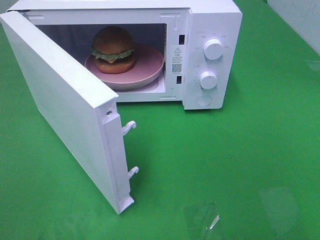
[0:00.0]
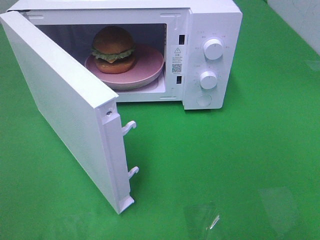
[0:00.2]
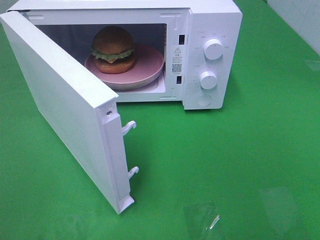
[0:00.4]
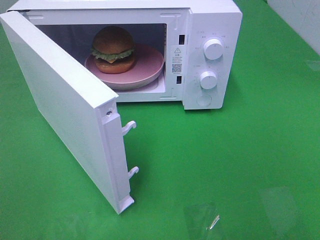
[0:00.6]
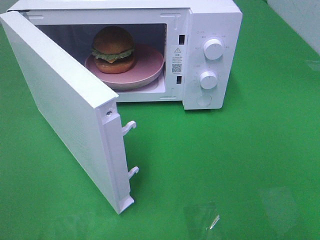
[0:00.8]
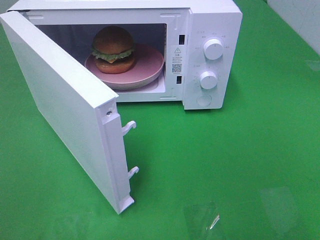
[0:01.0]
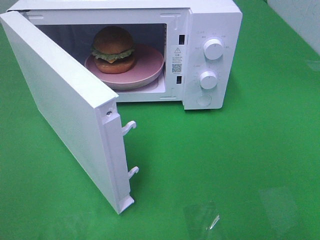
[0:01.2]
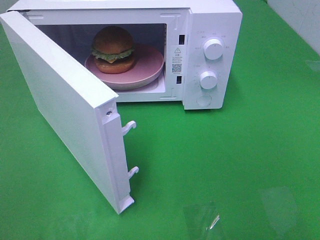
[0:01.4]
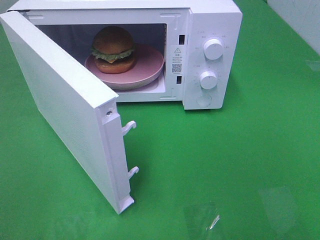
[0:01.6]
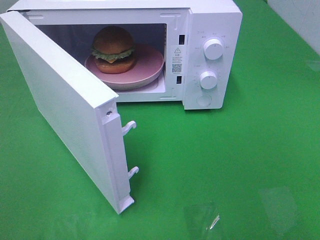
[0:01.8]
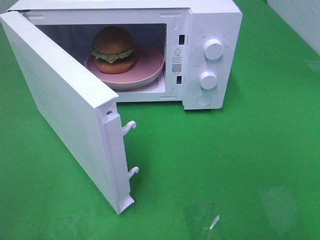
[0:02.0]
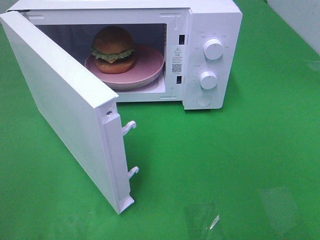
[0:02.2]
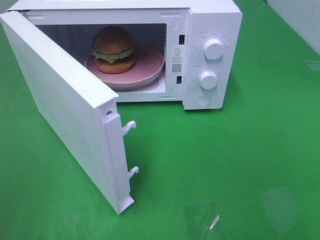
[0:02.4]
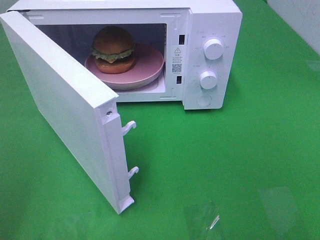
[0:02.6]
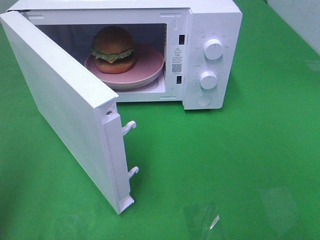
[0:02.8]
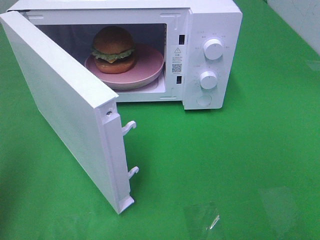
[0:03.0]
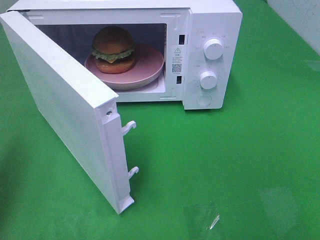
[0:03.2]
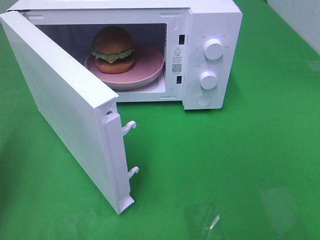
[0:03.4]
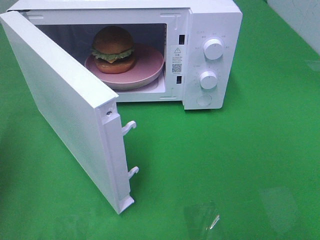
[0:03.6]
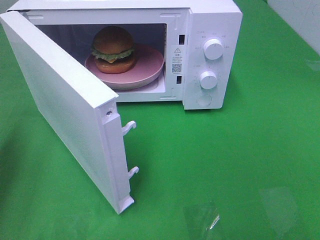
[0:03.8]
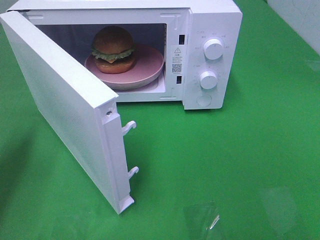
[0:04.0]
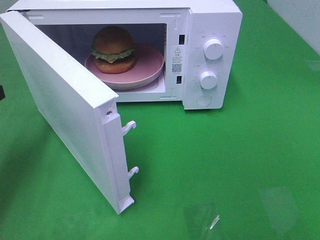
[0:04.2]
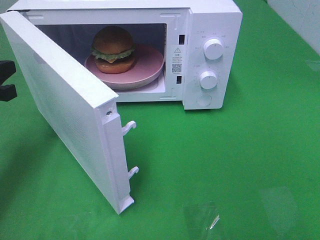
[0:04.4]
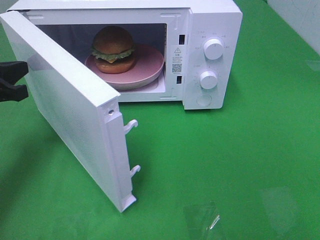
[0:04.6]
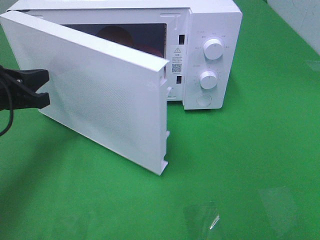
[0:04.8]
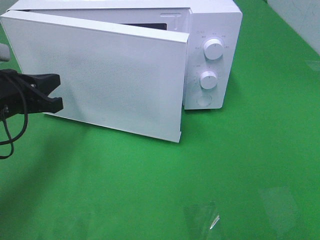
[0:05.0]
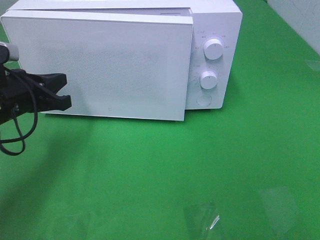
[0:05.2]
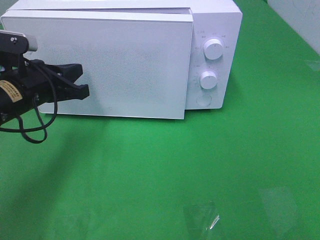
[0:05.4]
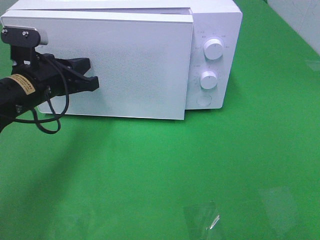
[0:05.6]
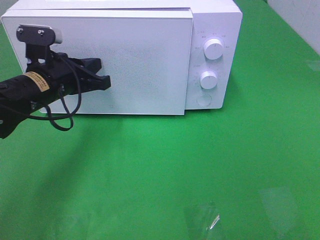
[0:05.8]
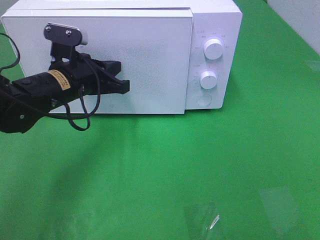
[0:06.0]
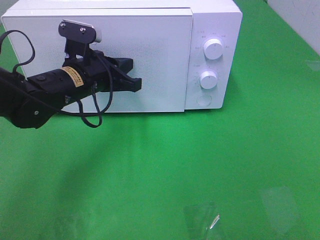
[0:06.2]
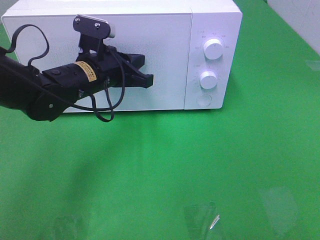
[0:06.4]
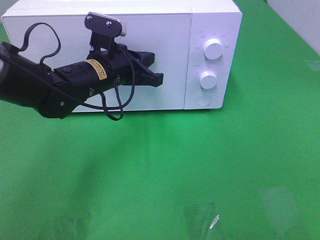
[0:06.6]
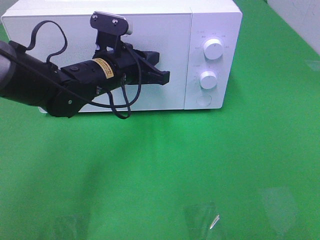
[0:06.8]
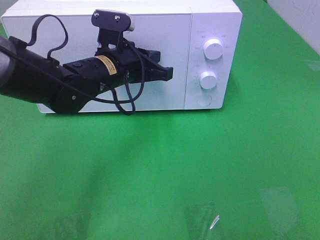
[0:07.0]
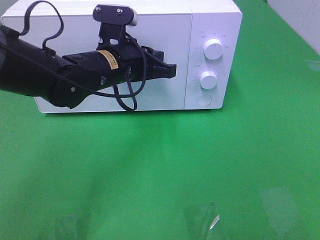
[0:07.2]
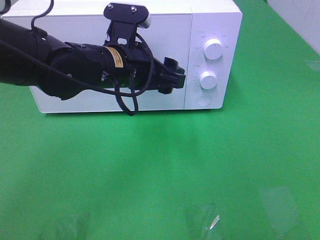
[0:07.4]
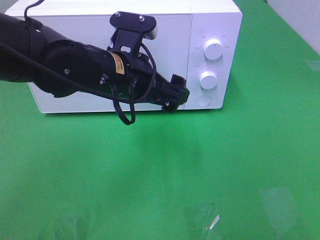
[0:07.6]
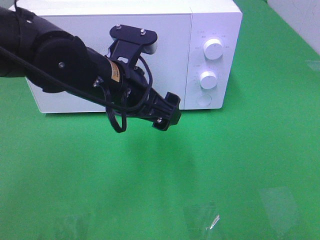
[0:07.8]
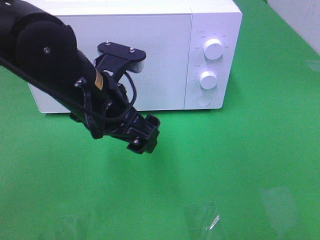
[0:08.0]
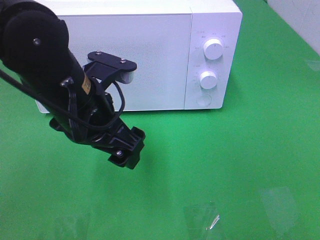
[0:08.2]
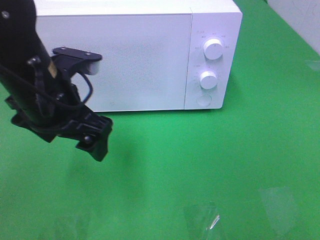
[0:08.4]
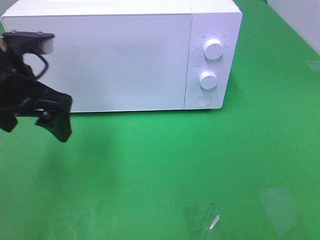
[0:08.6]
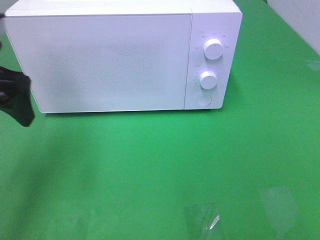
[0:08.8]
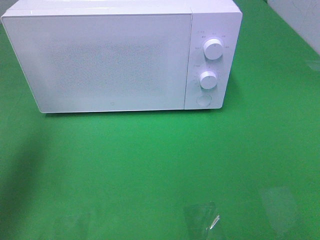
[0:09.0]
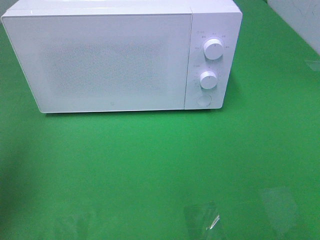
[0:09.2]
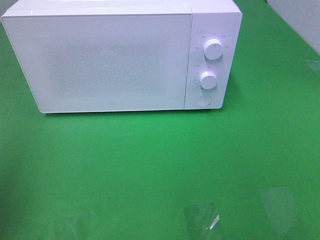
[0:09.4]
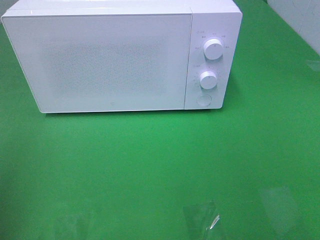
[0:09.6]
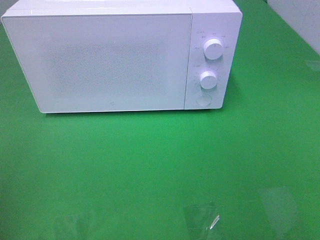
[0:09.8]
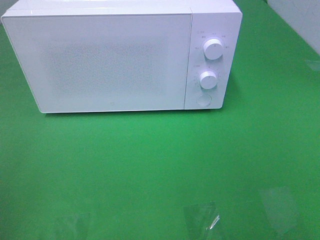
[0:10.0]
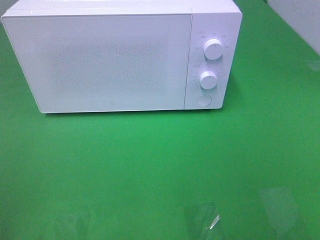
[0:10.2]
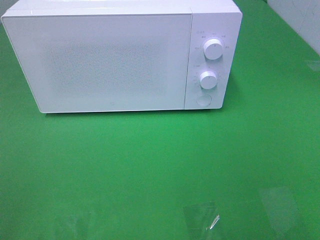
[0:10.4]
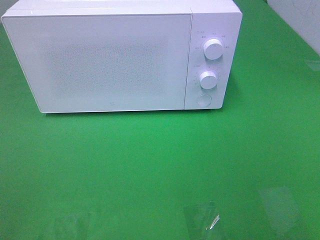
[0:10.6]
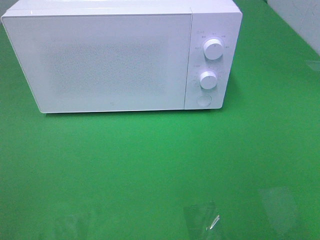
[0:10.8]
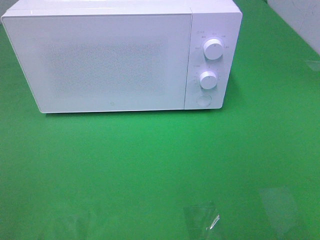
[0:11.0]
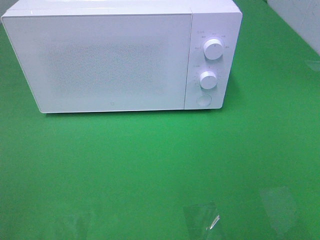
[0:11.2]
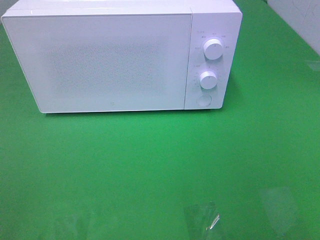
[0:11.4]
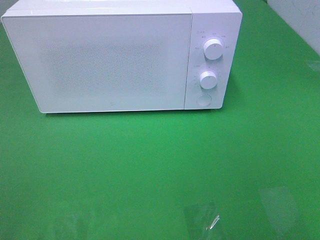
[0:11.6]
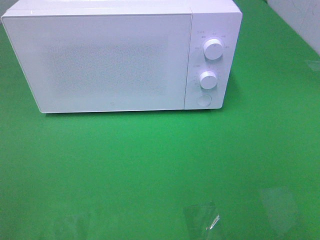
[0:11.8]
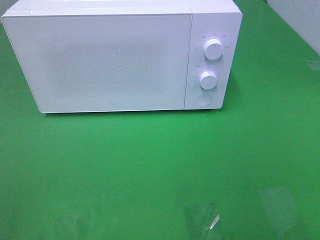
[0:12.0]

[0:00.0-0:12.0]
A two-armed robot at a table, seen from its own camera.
Task of the whole recording: Heat the burger.
Step, 0:00.0 to 0:07.0: Left hand: close the microwave door.
0:01.6 to 0:03.0: The left gripper is displaced forward by some 15 cm, and closes its fingers.
0:03.0 to 0:04.4: The left gripper is displaced forward and downward by approximately 20 cm.
0:04.4 to 0:06.0: The left gripper shifts roughly 15 cm to the right.
0:06.0 to 0:07.6: The left gripper heads to the right and backward, covering about 10 cm, and opens its fingers.
0:07.6 to 0:09.0: The left gripper moves to the left and upward, roughly 30 cm.
0:09.0 to 0:10.4: The left gripper travels backward by approximately 25 cm.
0:10.4 to 0:12.0: Both grippers stay put.

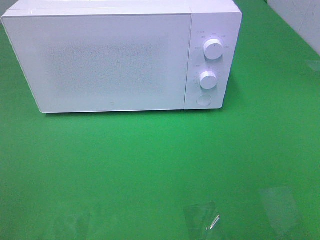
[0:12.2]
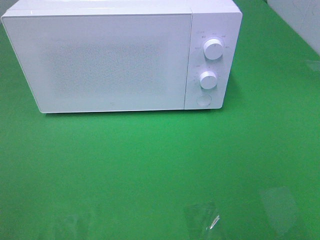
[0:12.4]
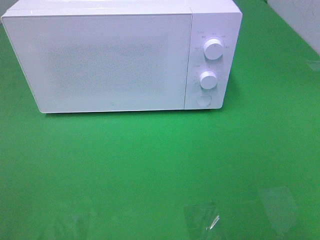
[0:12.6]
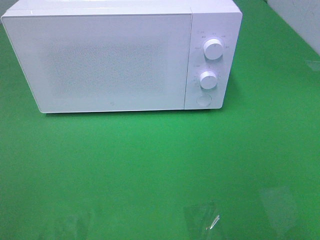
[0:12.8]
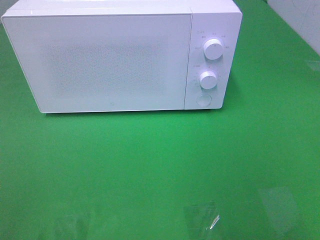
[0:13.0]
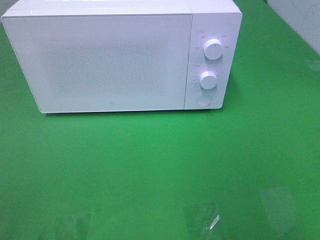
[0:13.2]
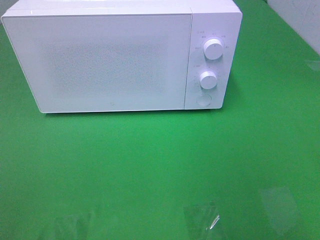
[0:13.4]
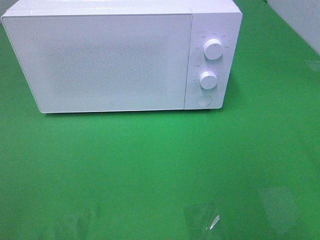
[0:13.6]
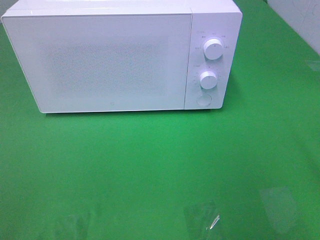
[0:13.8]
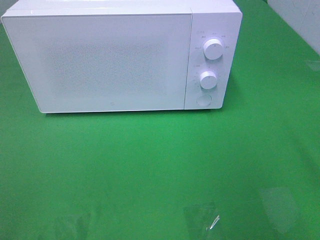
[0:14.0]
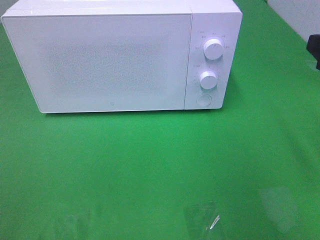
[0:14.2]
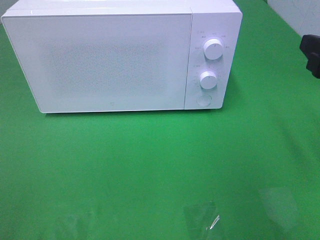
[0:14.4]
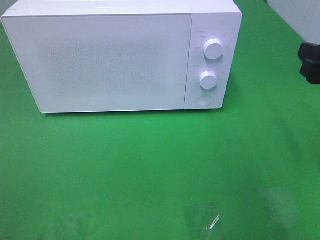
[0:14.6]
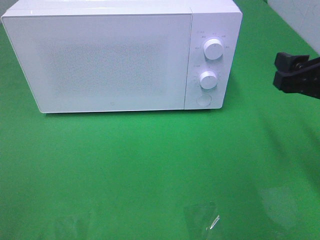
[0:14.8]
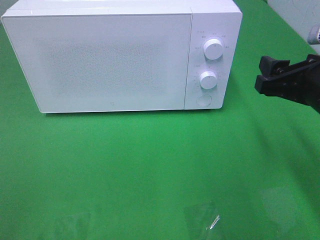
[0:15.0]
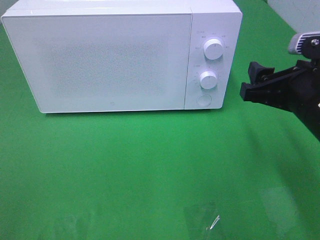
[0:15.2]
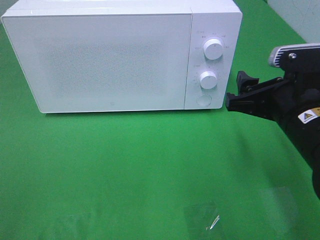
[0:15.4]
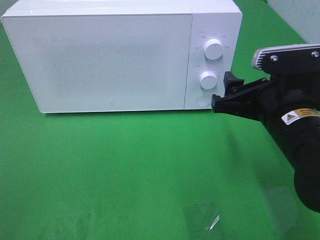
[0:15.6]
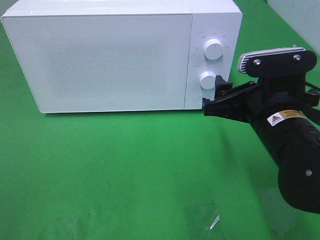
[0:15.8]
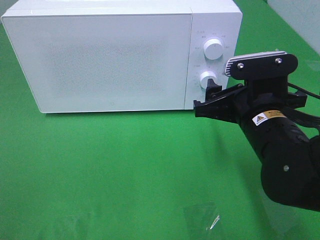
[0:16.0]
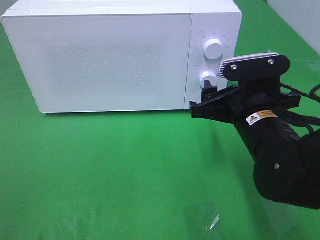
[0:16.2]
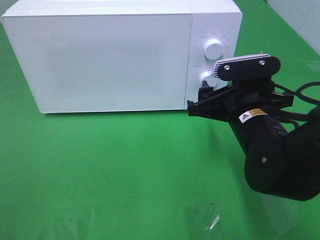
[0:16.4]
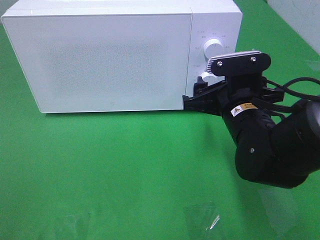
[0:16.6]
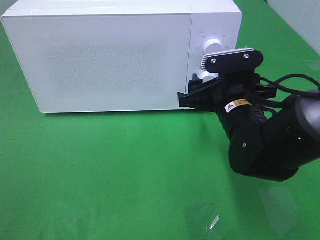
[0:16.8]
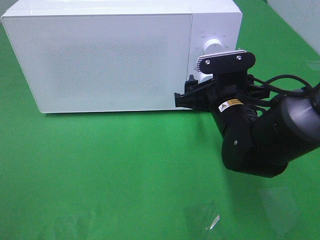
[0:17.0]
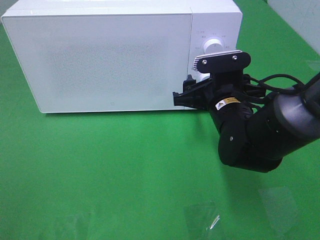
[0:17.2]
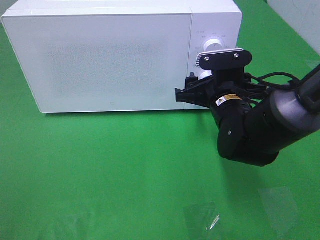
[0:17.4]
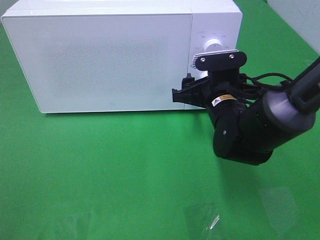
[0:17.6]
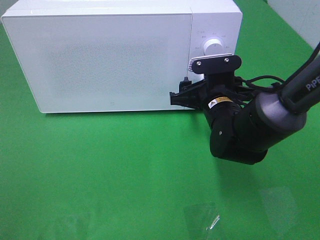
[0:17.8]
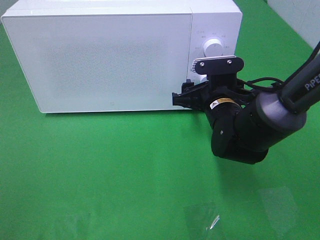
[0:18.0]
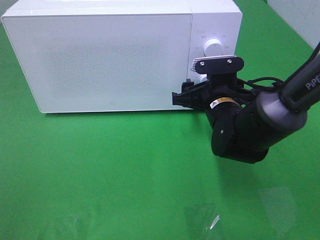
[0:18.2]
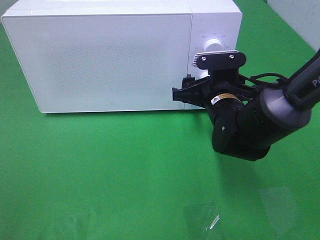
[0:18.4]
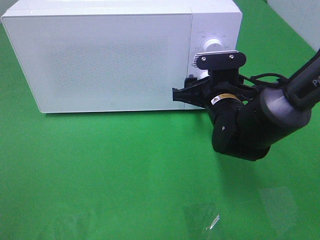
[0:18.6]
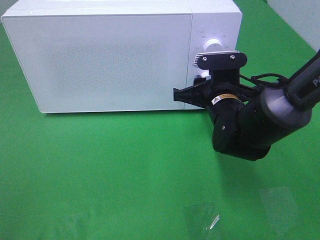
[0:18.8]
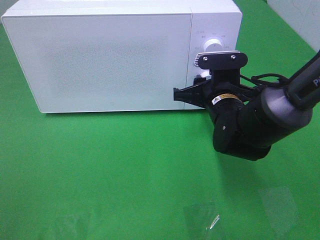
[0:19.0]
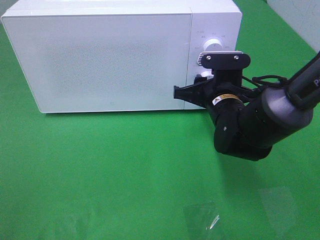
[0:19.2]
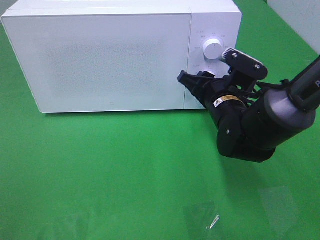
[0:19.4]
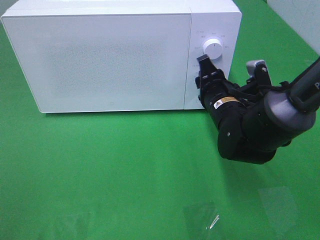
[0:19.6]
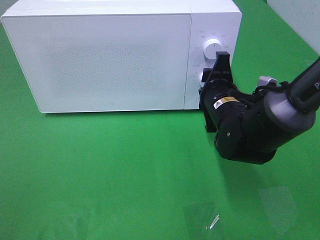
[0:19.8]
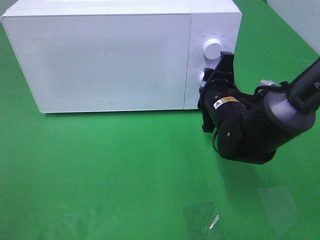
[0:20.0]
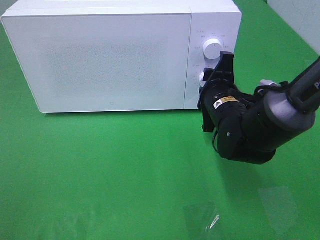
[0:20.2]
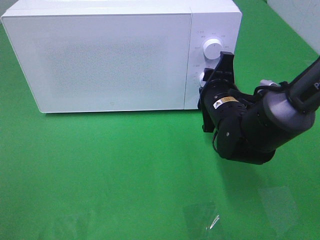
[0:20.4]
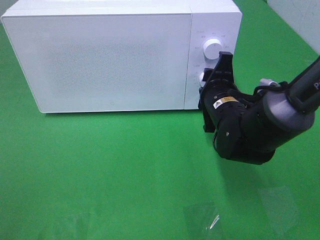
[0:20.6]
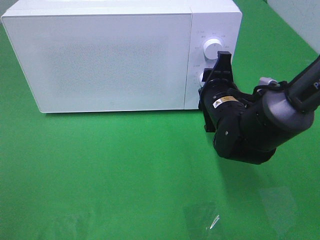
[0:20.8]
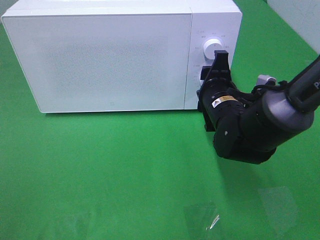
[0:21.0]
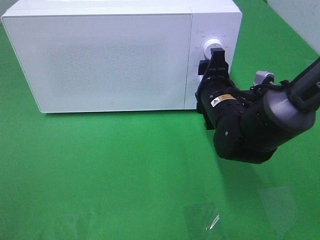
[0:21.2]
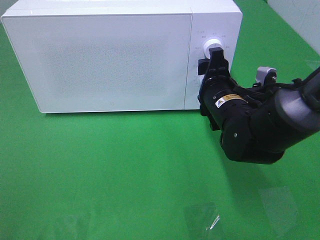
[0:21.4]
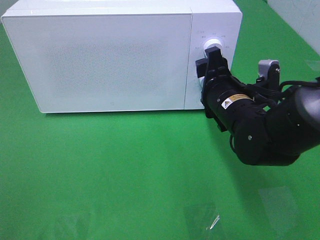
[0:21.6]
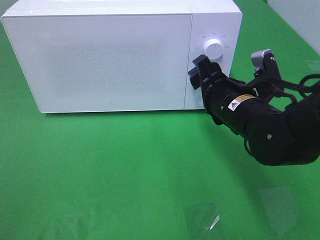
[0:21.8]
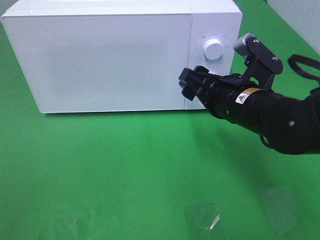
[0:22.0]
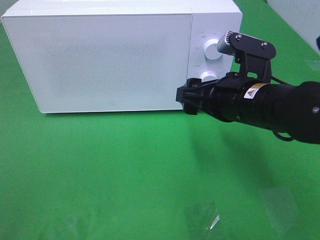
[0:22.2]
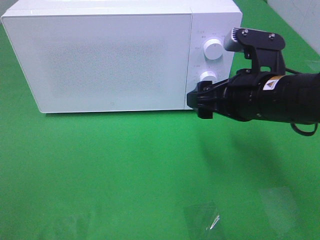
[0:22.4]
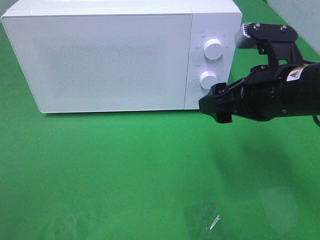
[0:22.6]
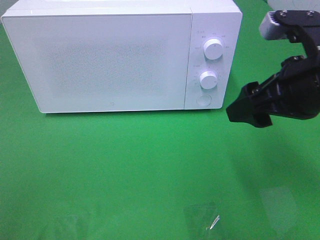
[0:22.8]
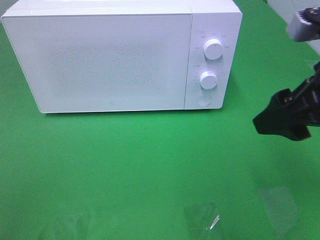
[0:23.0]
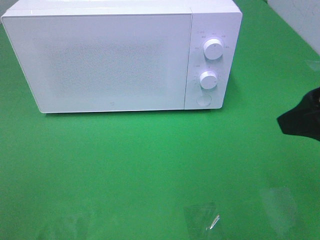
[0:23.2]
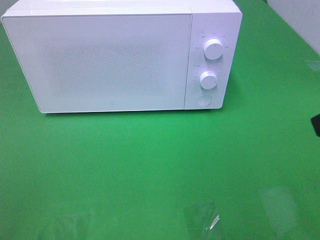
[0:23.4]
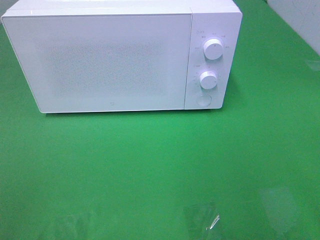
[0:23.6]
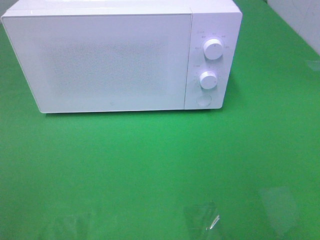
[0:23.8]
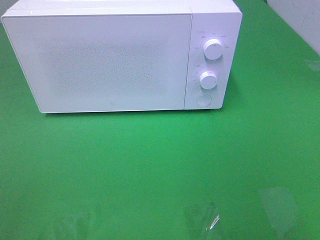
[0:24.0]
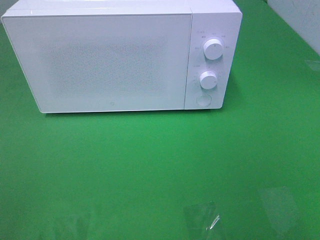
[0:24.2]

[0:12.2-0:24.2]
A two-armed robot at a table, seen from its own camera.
Task of the whole recording: Heat the burger.
Step, 0:12.2 to 0:21.0: Right hand: twist timer button.
0:13.8 to 0:15.2: The right gripper moves downward, to the left and forward, approximately 15 cm.
0:15.2 to 0:16.6: The right gripper goes some 10 cm to the left and downward.
0:16.6 to 0:18.2: The right gripper moves forward, roughly 5 cm.
0:18.2 to 0:19.8: The right gripper closes its fingers.
0:19.8 to 0:21.2: The grippers make only small movements.
0:21.2 to 0:22.6: The right gripper heads upward, backward and to the right, covering roughly 15 cm.
0:22.6 to 0:24.2: The right gripper shifts roughly 25 cm backward and to the right.
